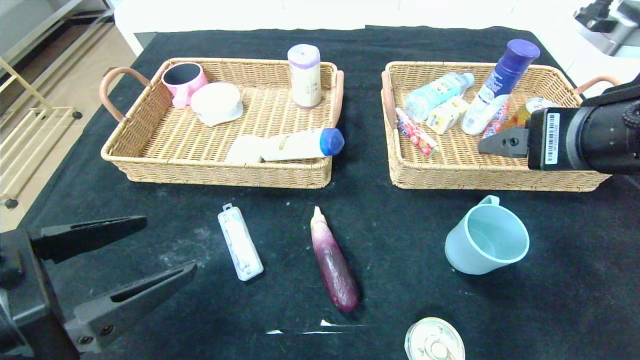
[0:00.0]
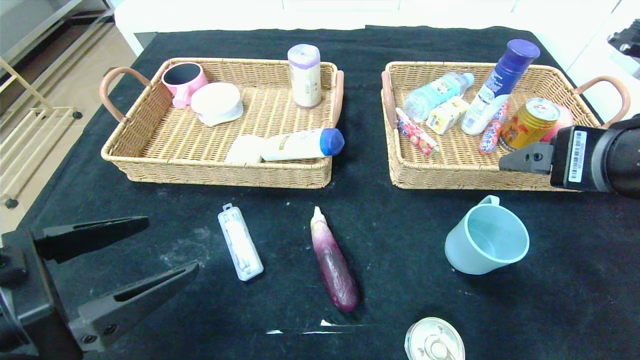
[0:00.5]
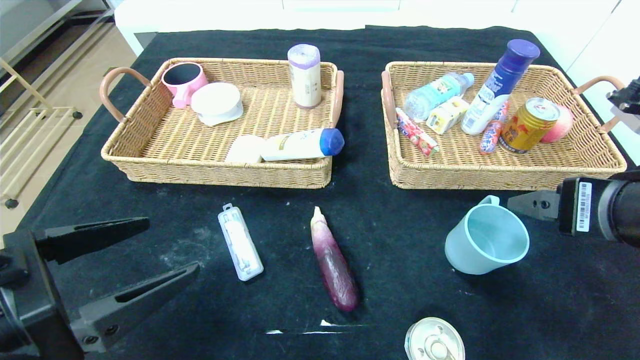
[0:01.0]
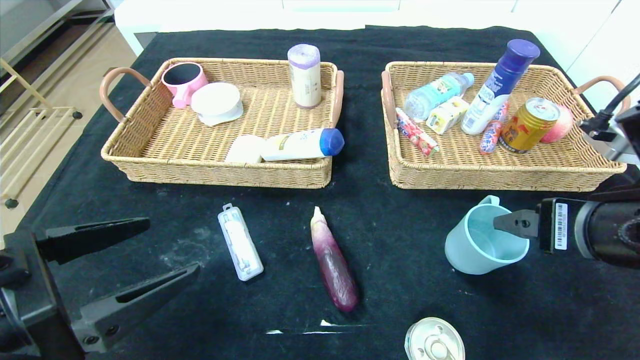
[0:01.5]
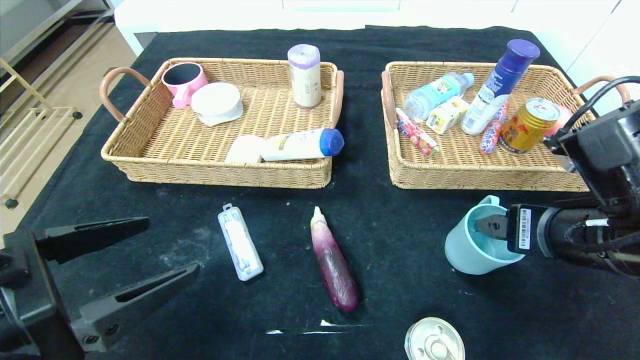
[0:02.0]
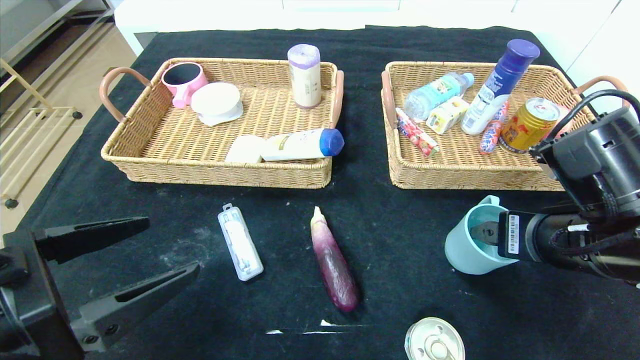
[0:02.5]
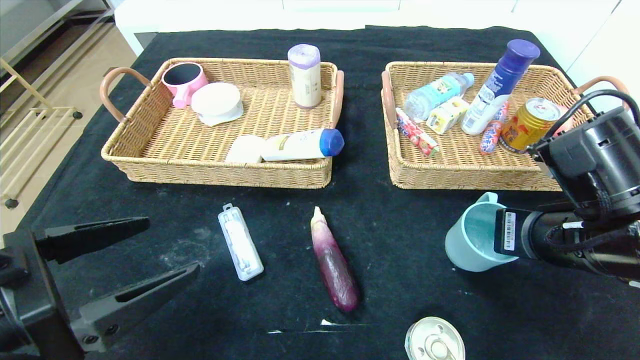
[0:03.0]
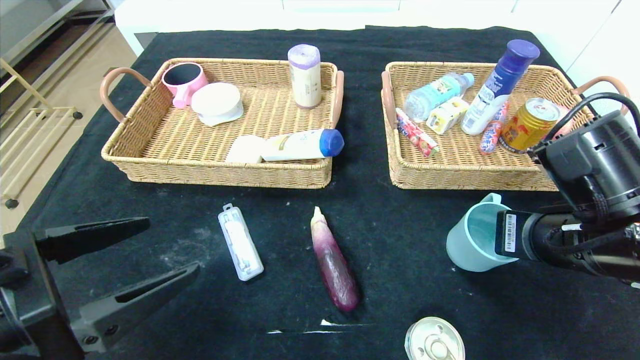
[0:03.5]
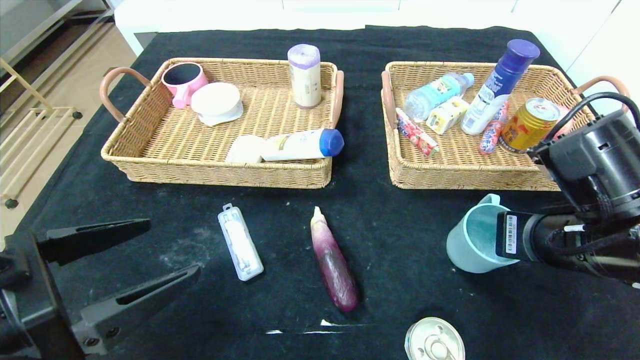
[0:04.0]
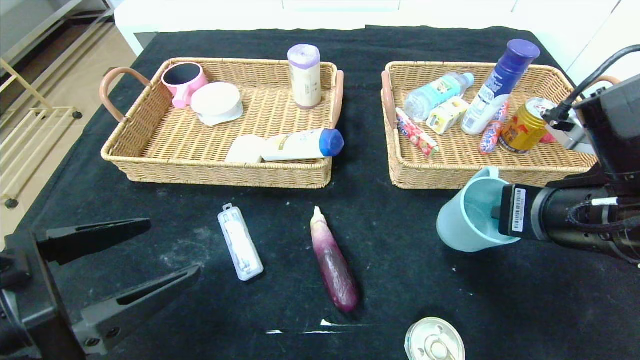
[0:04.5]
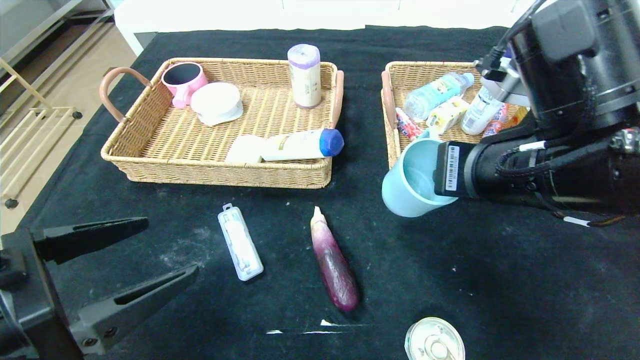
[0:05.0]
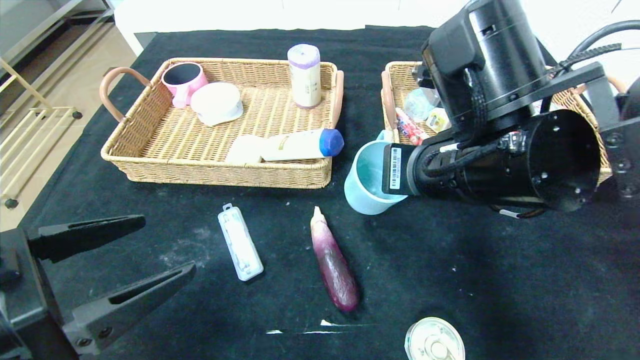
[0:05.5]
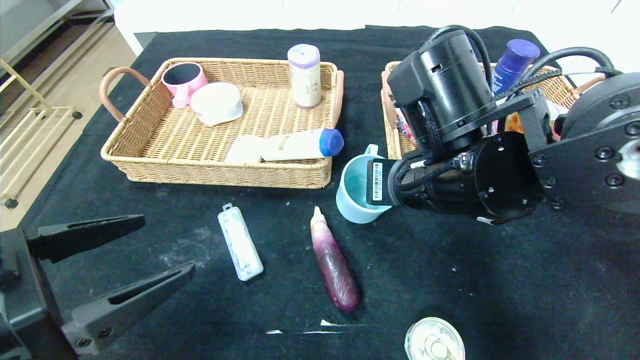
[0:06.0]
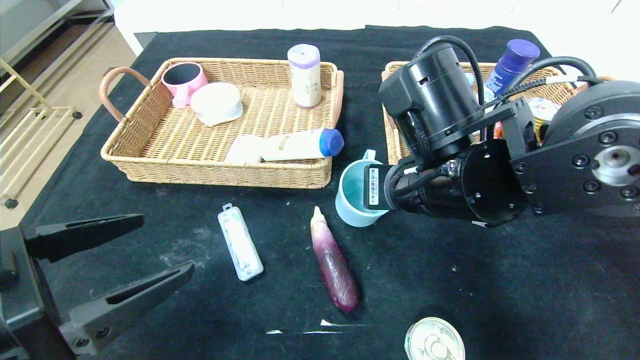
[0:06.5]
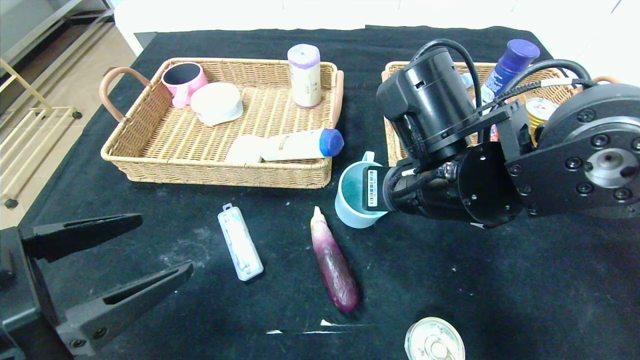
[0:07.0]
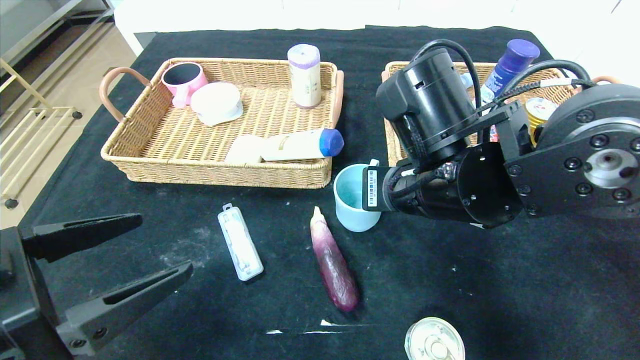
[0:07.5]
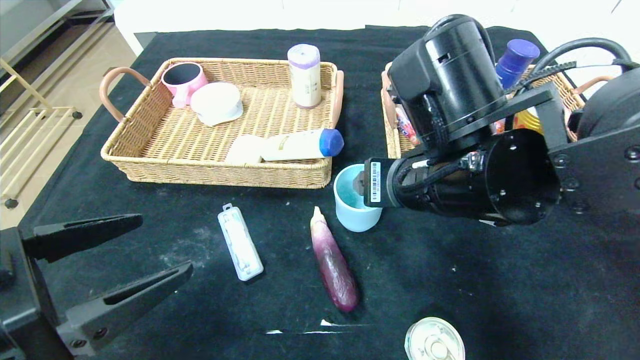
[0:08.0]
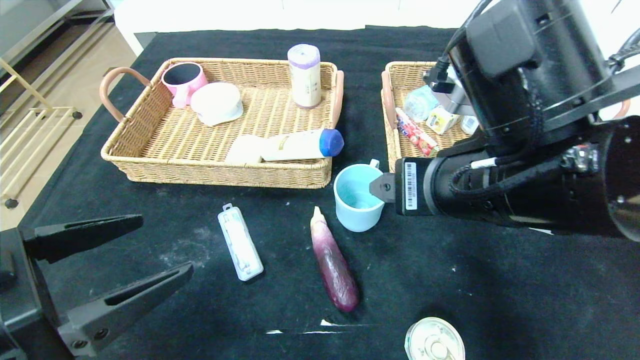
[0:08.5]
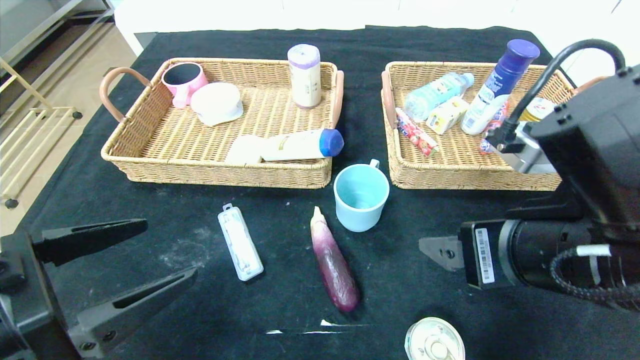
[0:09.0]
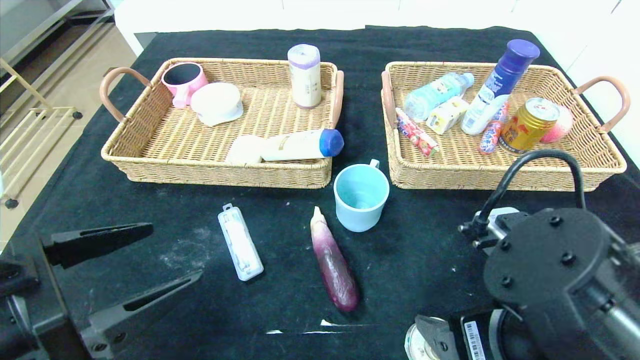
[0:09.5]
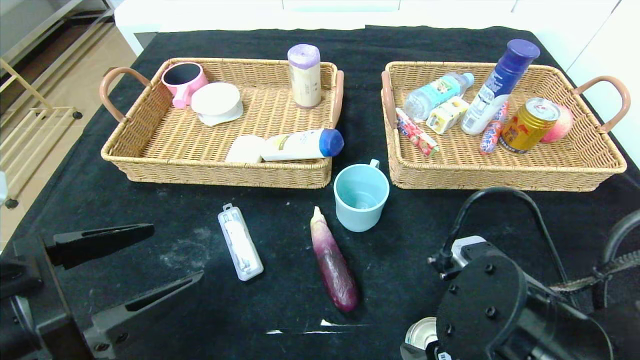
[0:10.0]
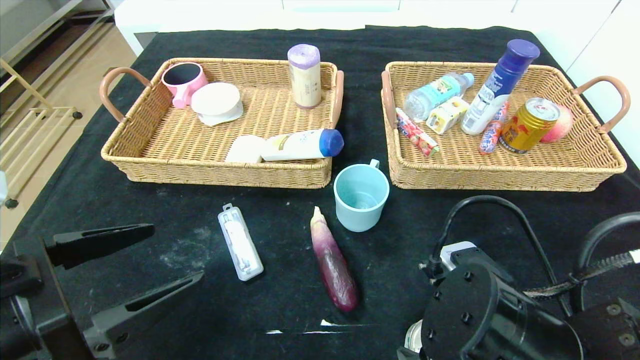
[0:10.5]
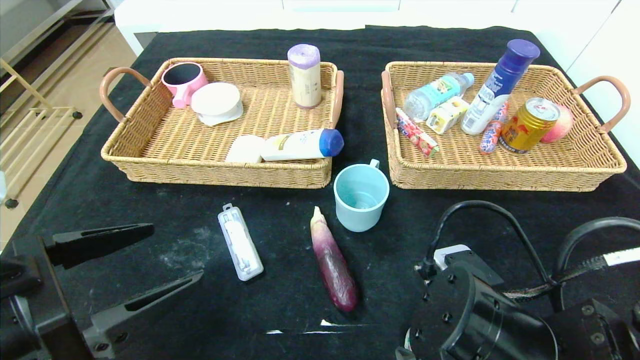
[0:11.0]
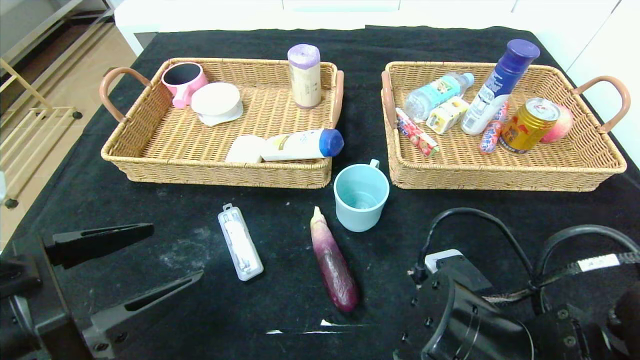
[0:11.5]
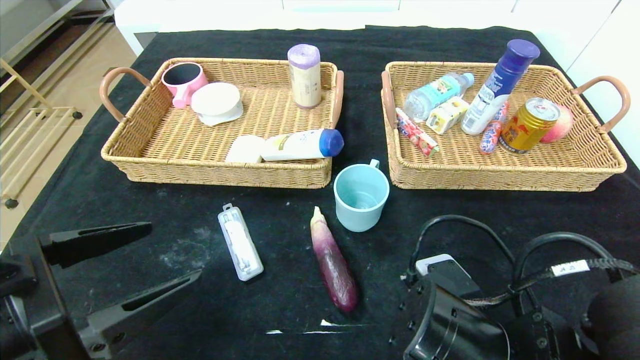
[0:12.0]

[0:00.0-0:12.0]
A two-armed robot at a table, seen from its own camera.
Step, 0:00.0 to 0:08.5: Place the blue cup in the center of the table.
0:00.0 to 0:02.0: The right gripper is displaced downward by about 10 cm.
0:02.0 to 0:04.0: The right gripper closes its fingers.
0:04.0 to 0:06.0: The right gripper goes about 15 cm to the left.
0:06.0 to 0:08.0: The right gripper opens up.
0:08.0 to 0:10.0: The right gripper goes some 15 cm backward and downward.
0:10.0 to 0:12.0: The grippers move only a little.

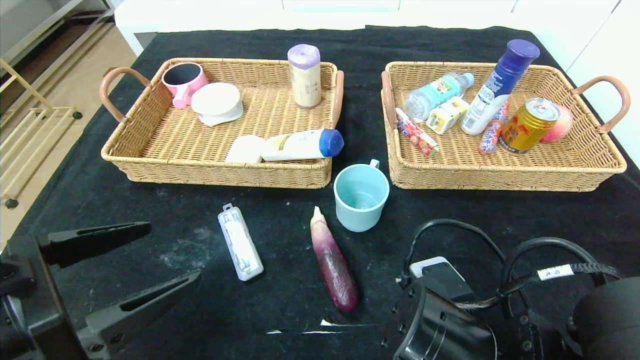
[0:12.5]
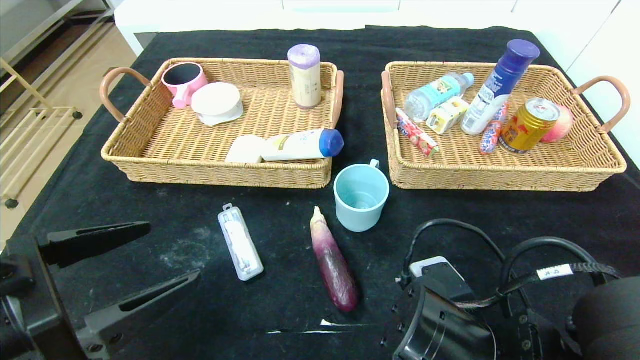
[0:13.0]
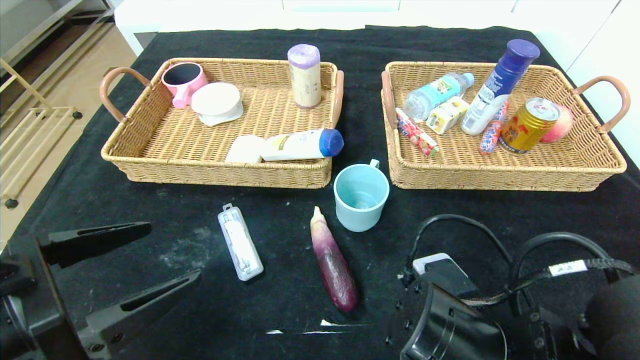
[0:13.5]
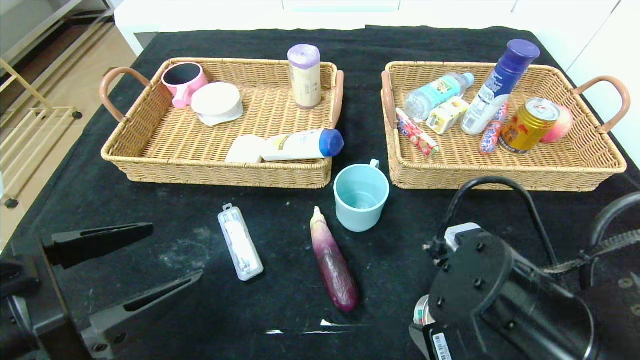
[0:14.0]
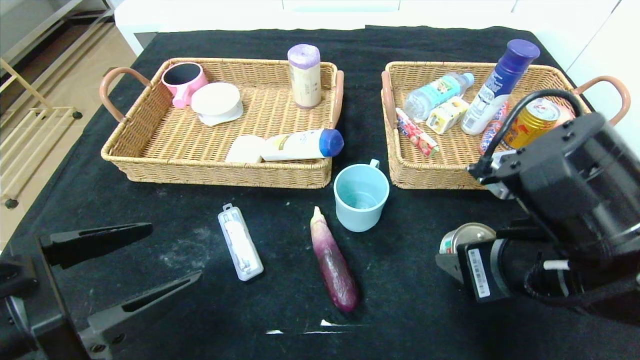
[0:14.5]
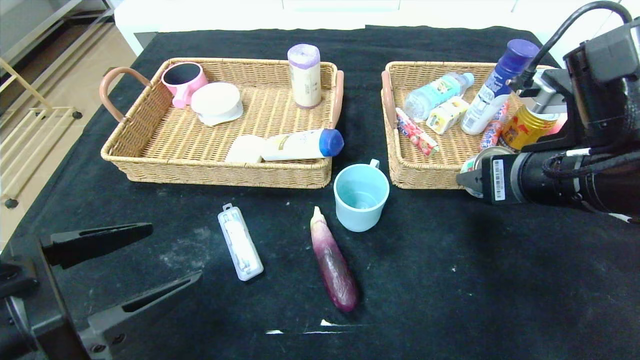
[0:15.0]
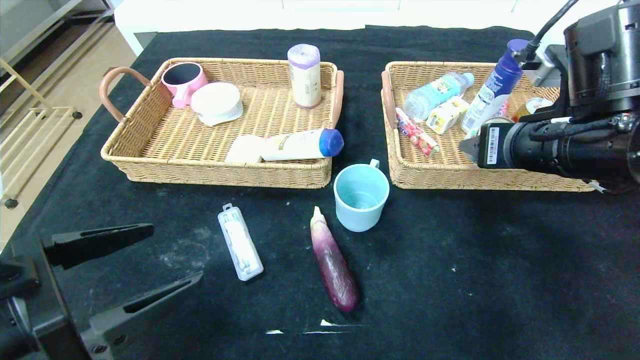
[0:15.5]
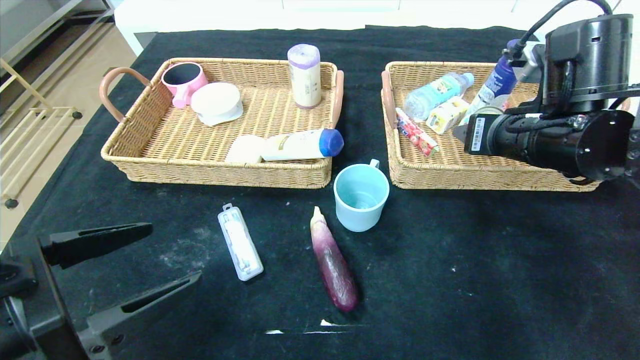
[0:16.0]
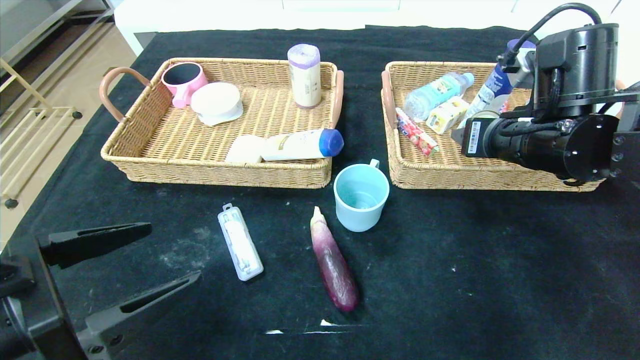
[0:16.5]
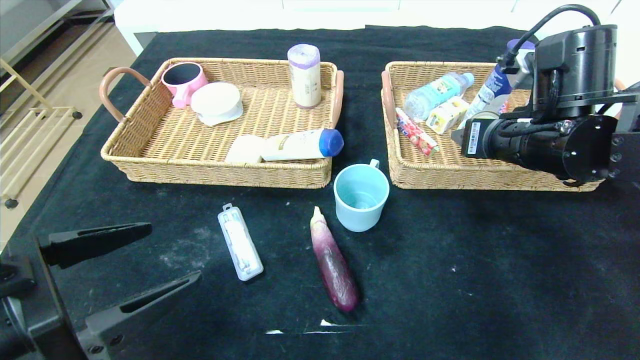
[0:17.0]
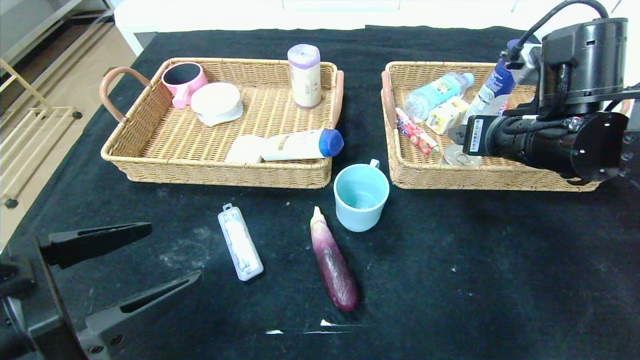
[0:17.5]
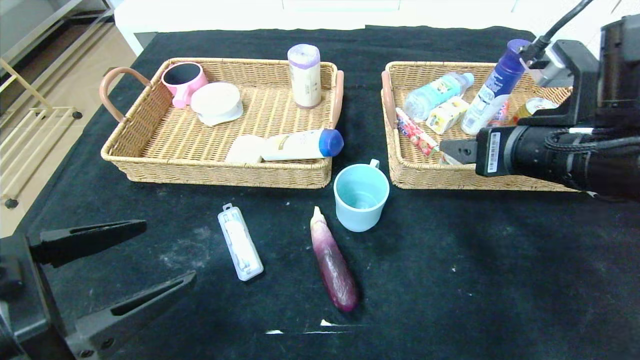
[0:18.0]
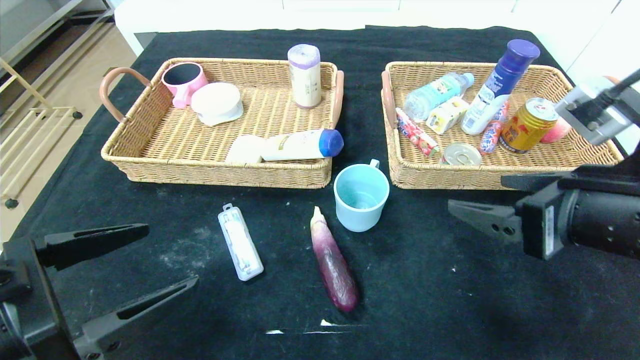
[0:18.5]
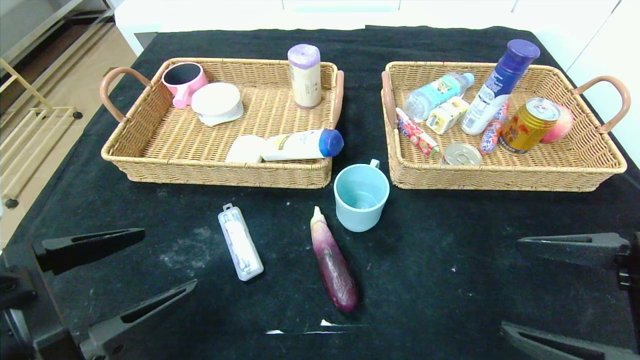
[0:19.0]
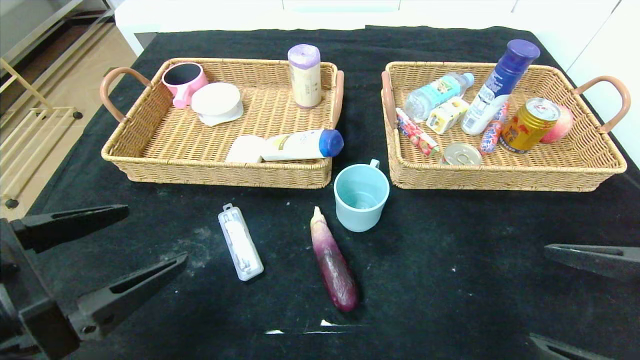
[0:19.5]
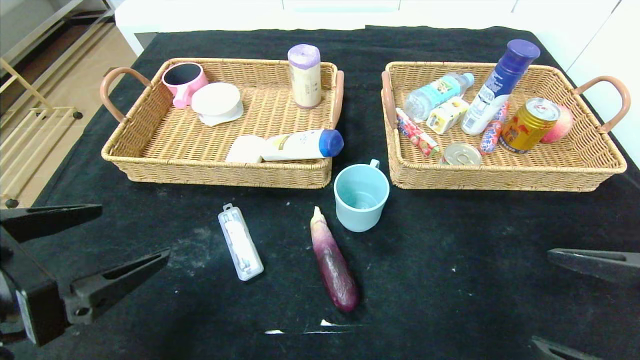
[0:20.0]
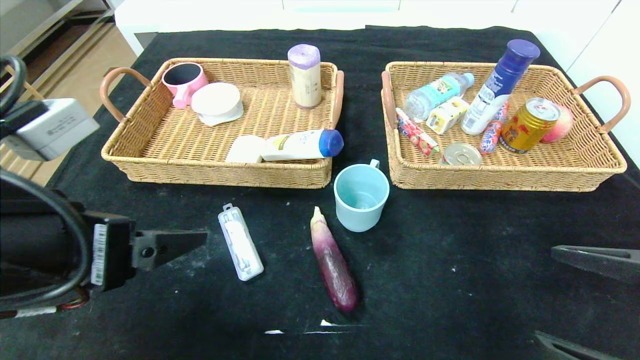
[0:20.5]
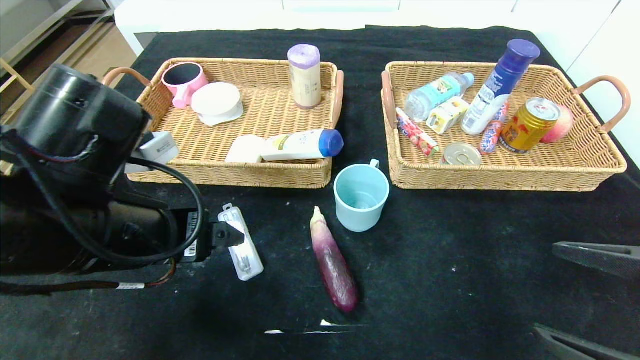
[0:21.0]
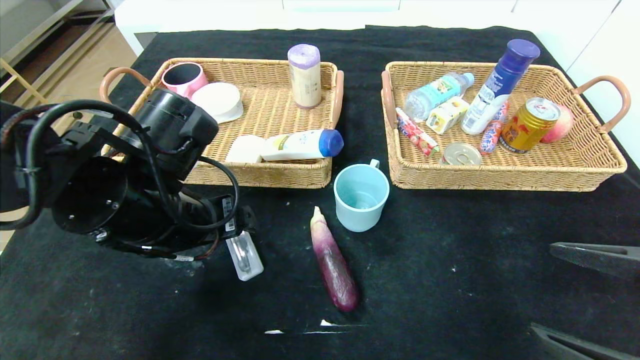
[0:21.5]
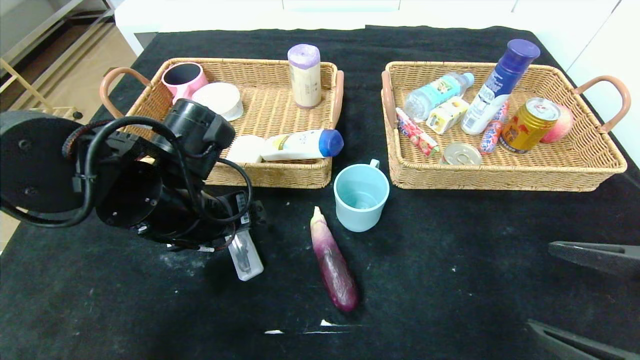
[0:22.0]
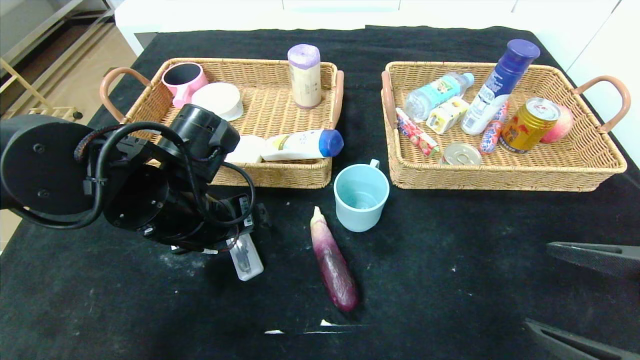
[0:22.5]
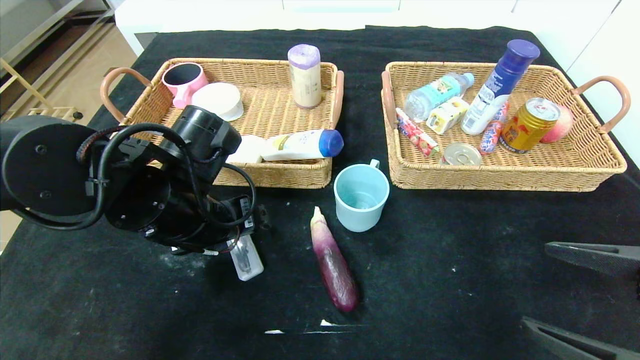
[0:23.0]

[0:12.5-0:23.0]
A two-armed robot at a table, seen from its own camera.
Step, 0:12.5 to 0:18.5: Pick up the can and put it in the right basket.
0:12.5 to 0:14.5: The right gripper is displaced upward and to the right by some 10 cm.
0:14.5 to 0:16.5: The right gripper shifts roughly 15 cm forward.
0:16.5 to 0:19.0: The right gripper moves backward, some 20 cm, and opens its fingers.
0:19.0 to 0:21.0: The left gripper shifts about 10 cm forward and to the right.
0:21.0 to 0:23.0: The left gripper goes approximately 10 cm forward.
